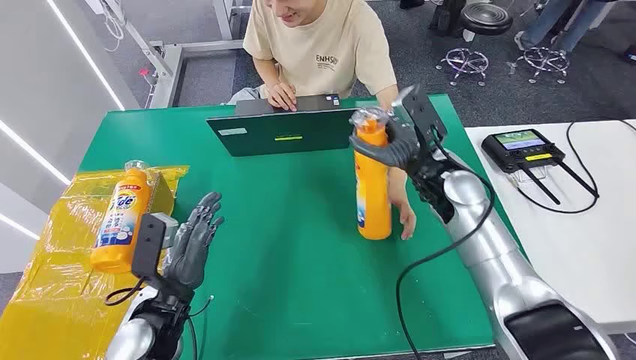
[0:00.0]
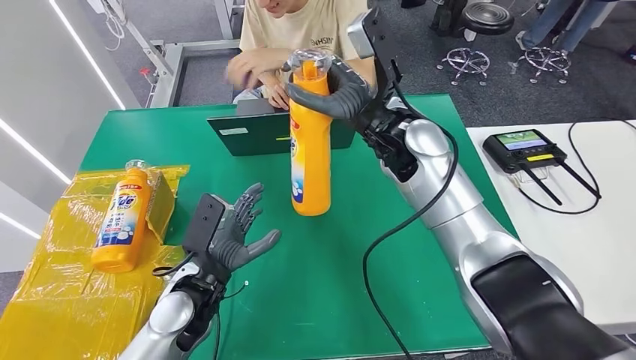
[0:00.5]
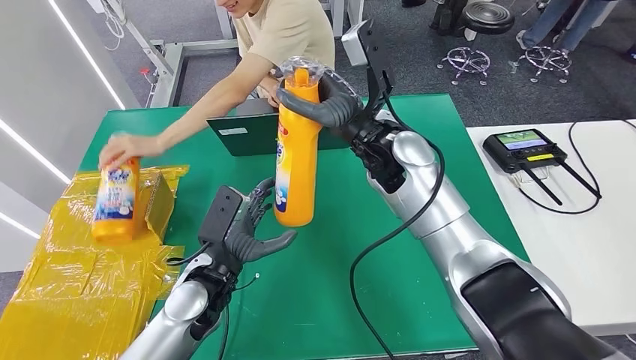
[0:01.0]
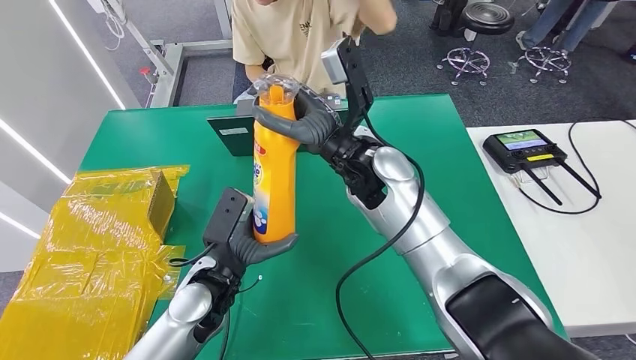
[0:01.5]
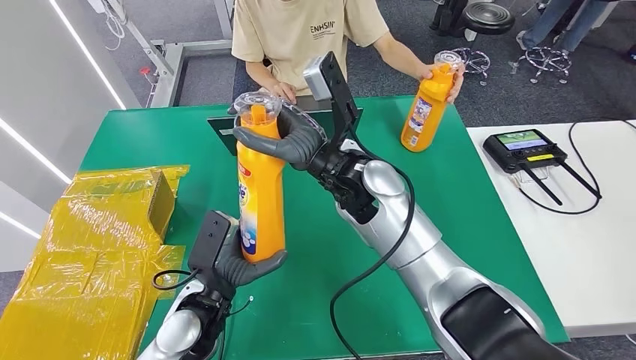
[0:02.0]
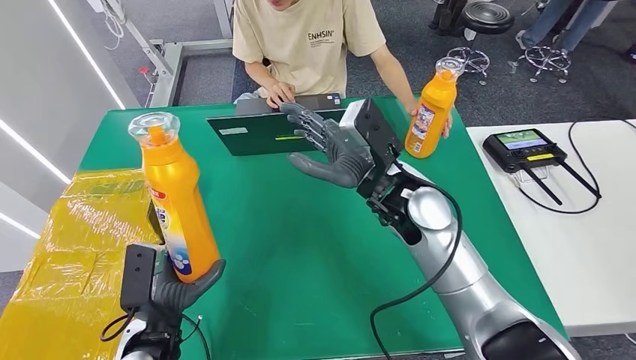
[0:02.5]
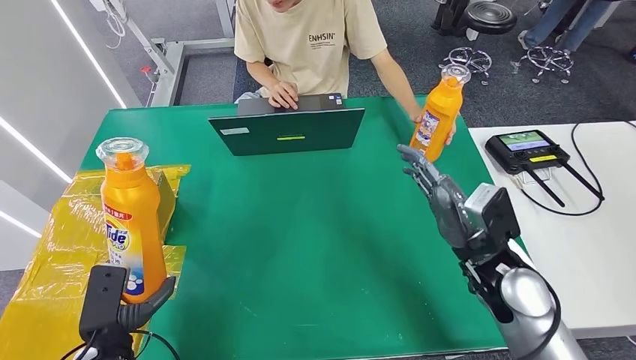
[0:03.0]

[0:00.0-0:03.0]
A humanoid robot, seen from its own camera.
Step, 0:00.0 to 0:01.5: Pick up the bottle from the table.
Step, 0:02.0 to 0:03.0: Turn the bottle to the front side.
